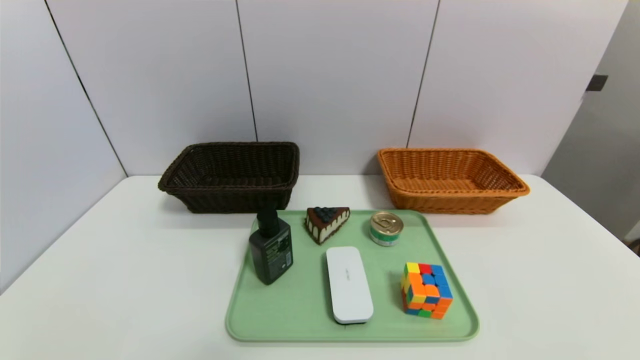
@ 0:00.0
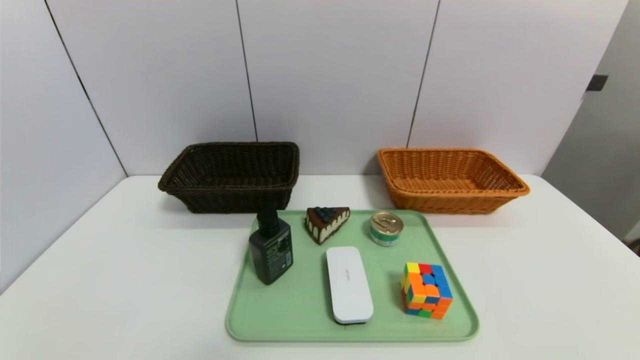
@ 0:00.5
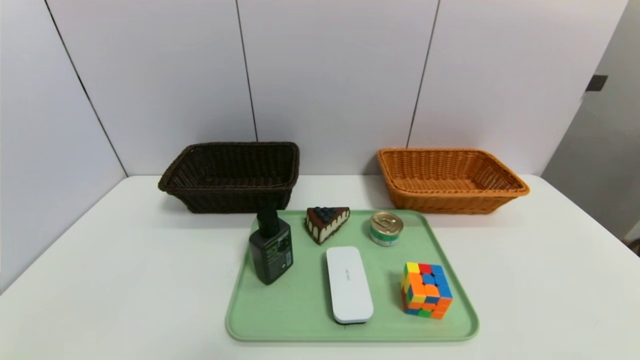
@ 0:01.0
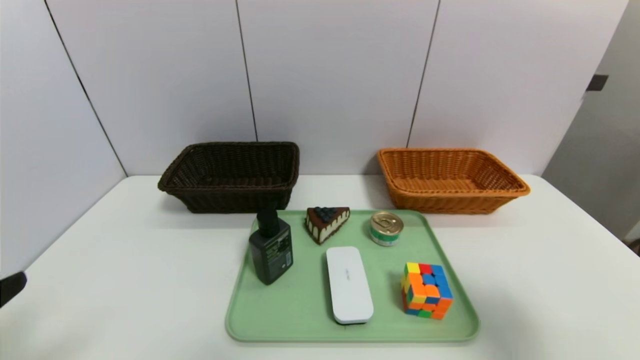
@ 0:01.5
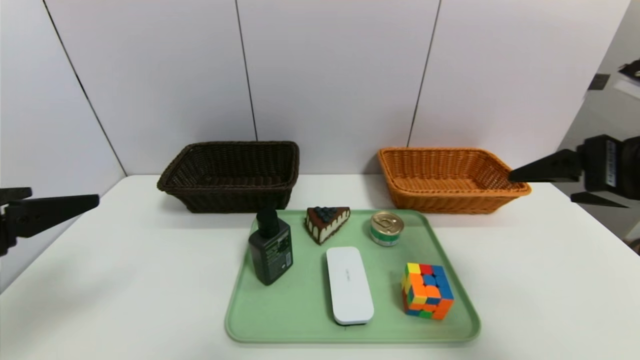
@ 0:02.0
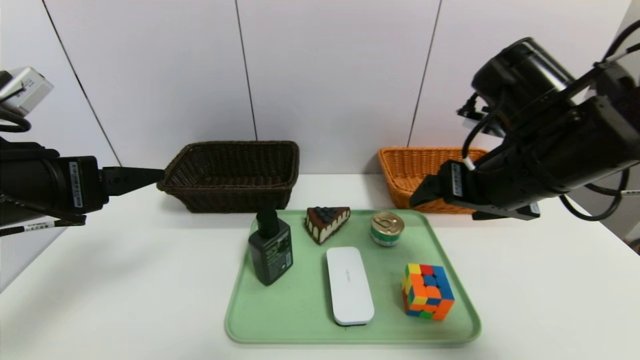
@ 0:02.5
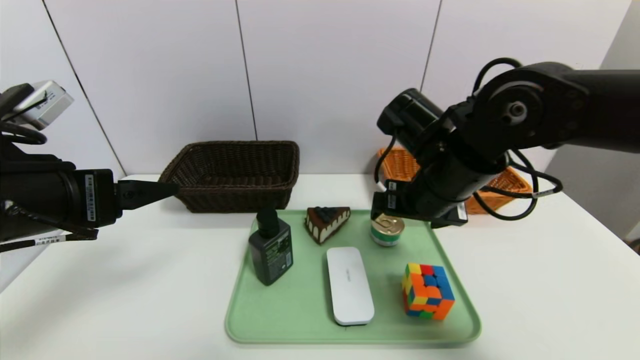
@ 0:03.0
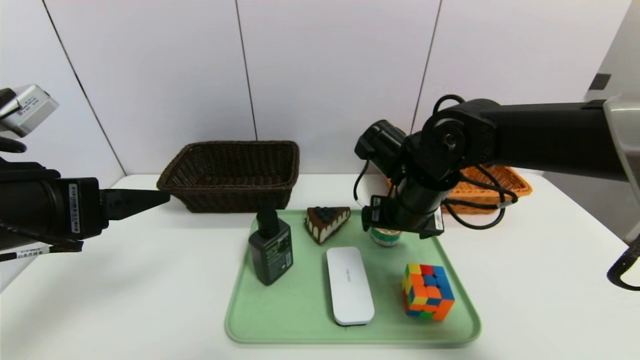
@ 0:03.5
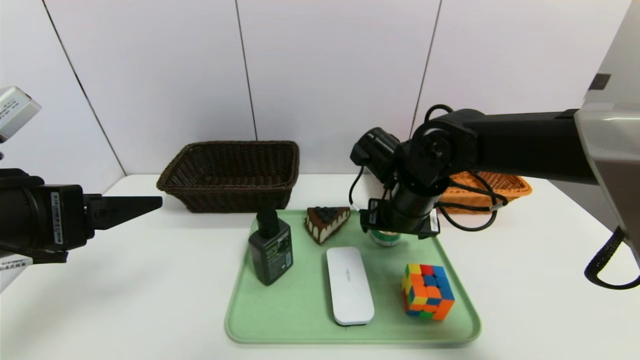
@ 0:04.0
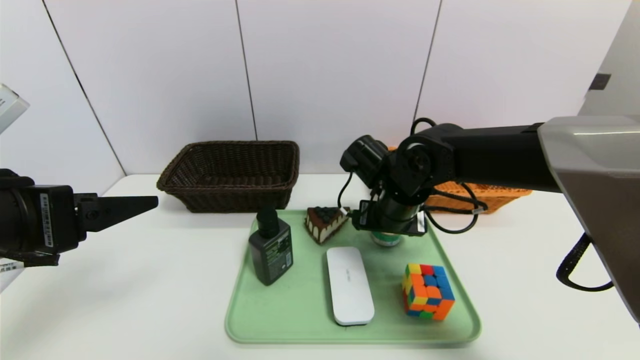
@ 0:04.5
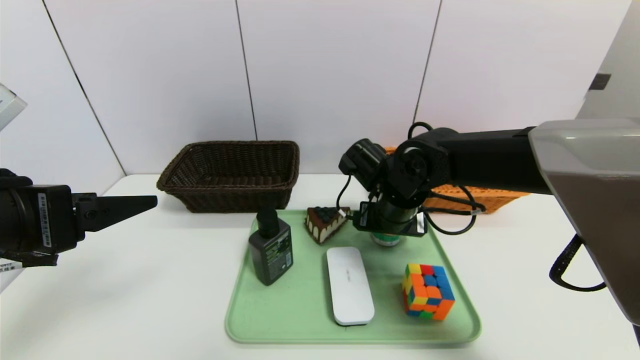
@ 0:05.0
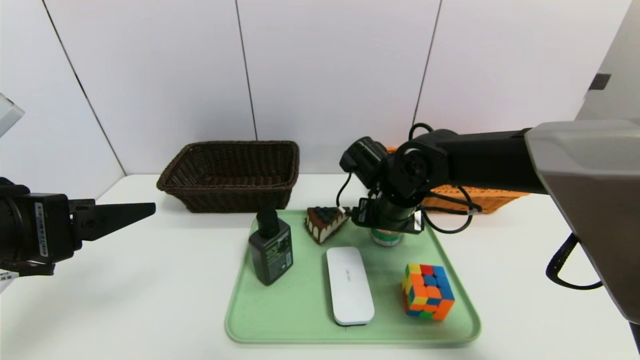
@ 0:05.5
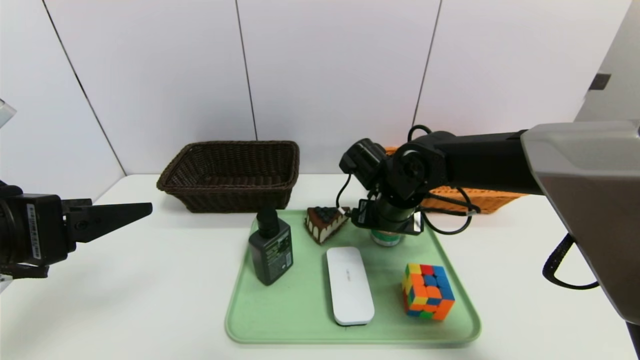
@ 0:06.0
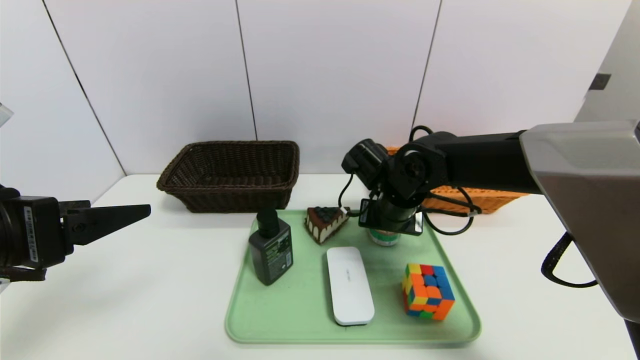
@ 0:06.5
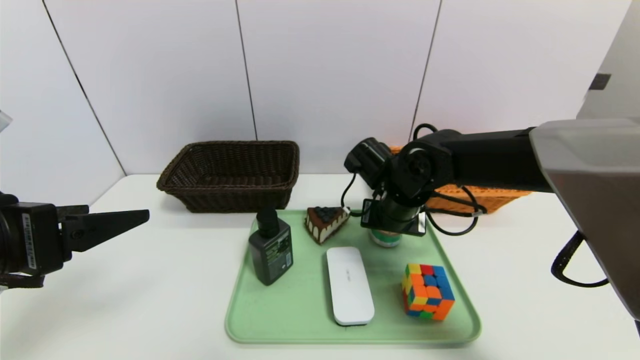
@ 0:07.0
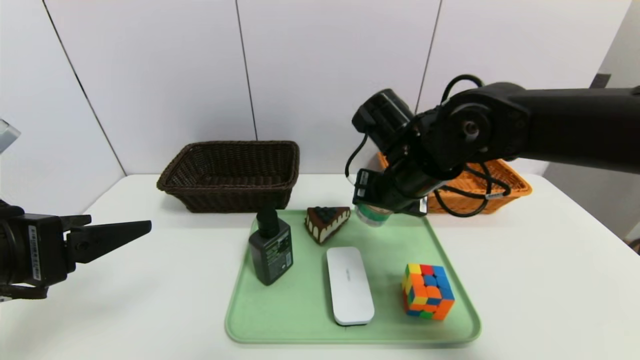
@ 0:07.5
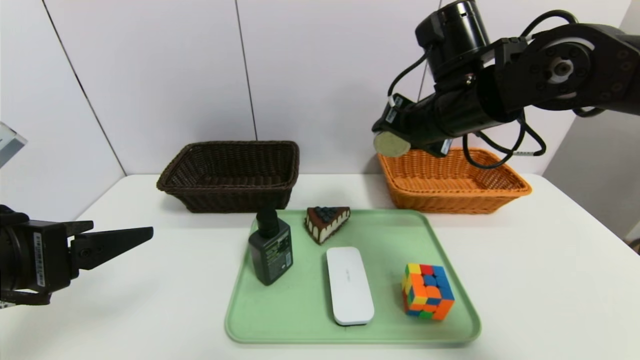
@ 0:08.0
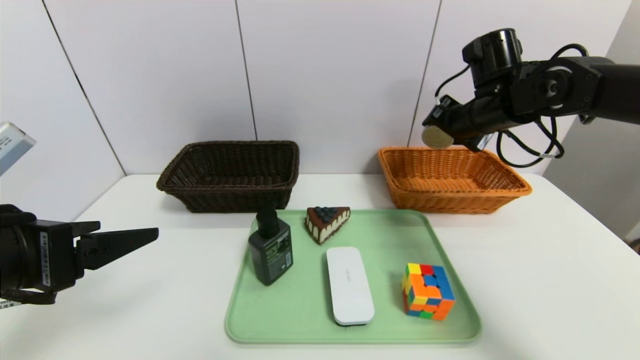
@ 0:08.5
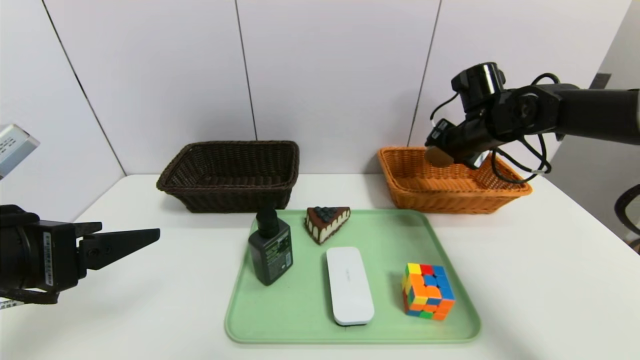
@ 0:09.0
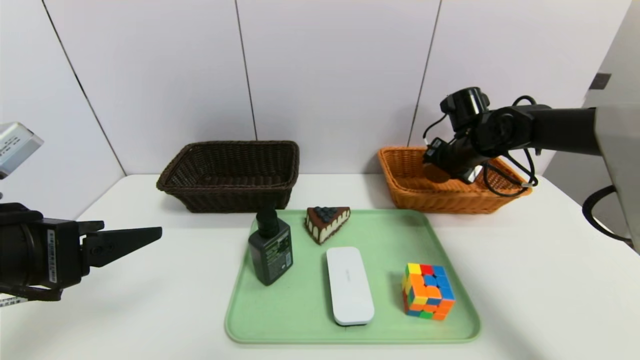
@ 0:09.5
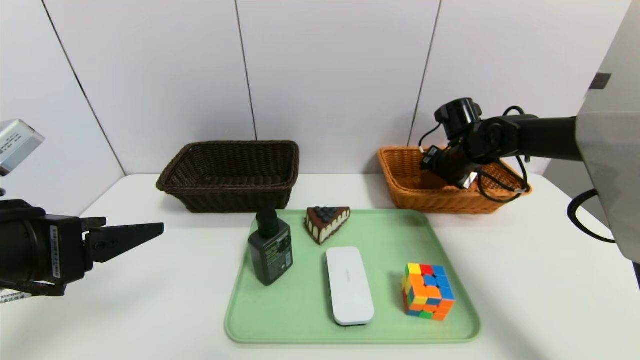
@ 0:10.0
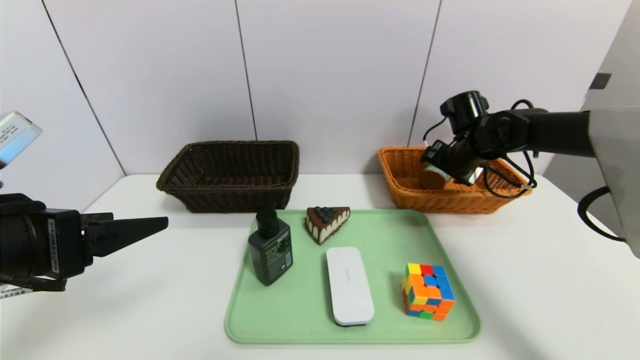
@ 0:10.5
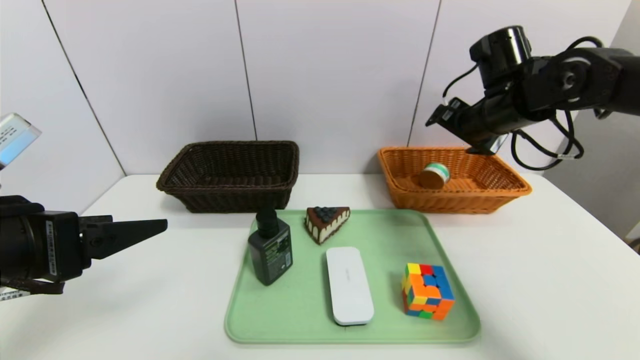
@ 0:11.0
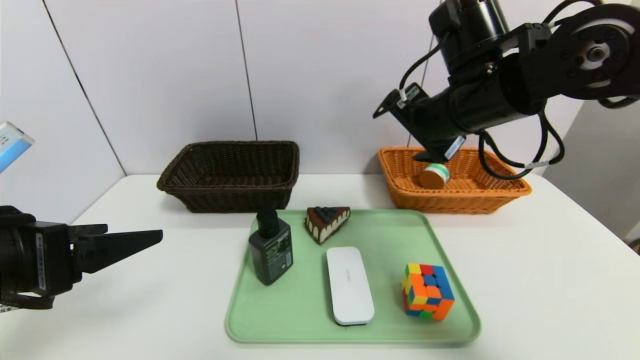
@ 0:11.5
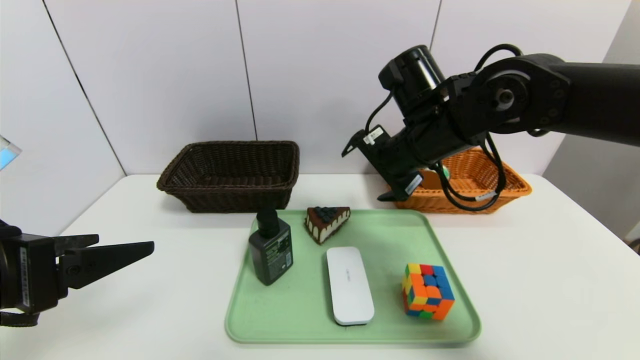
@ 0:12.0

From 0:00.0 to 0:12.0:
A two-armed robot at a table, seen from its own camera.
Task of the whole recording: place the food in the right basket with the right gripper, and place the non food items in the left basket with the left gripper.
Step, from 0:00.0 to 0:10.5: Grasp the tin and put it in the right basket.
From 0:00.0 to 0:02.0: The two grippers go approximately 30 cm upward and forward.
From 0:02.0 to 0:04.0: The right gripper moves to the left, forward and downward, about 25 cm.
From 0:04.0 to 0:06.0: The grippers stay close to where they were, moving slightly.
From 0:06.0 to 0:08.0: The right gripper shifts some 15 cm upward, and closes up.
From 0:08.0 to 0:10.0: The right gripper is displaced forward, downward and to the right by approximately 20 cm.
From 0:10.0 to 0:12.0: The right gripper is displaced to the left, backward and upward by roughly 20 cm, and opens.

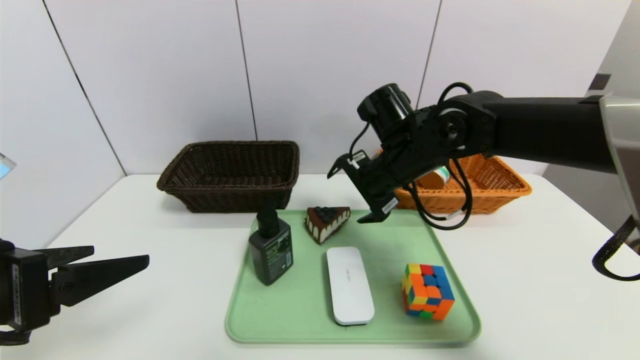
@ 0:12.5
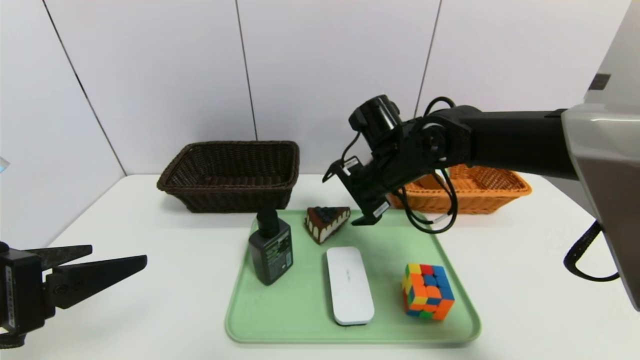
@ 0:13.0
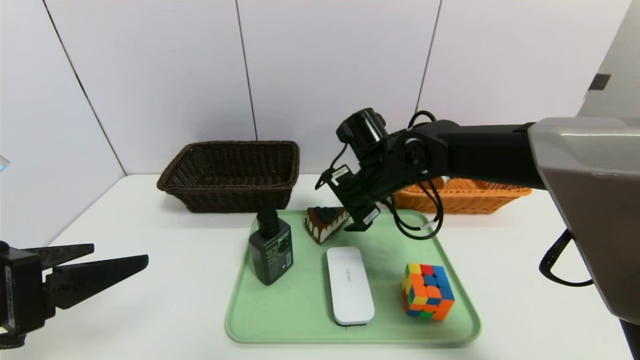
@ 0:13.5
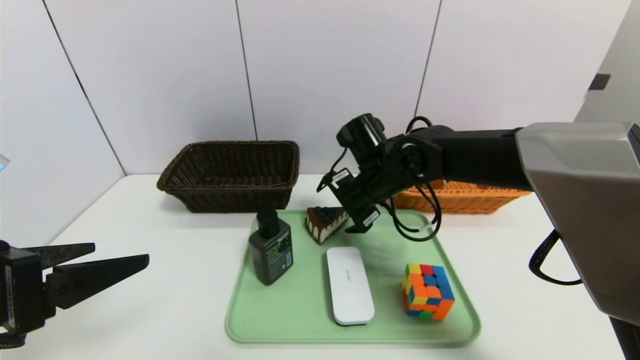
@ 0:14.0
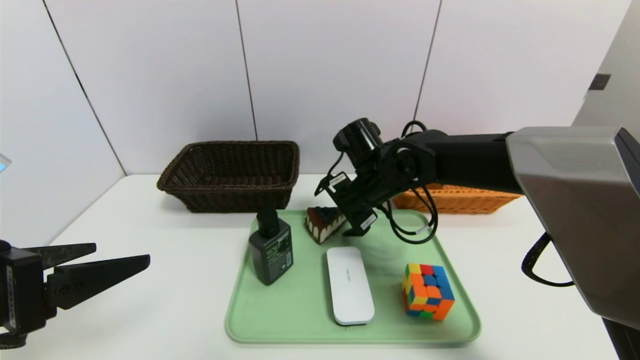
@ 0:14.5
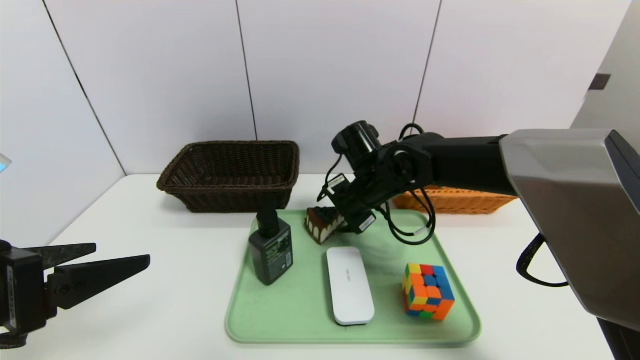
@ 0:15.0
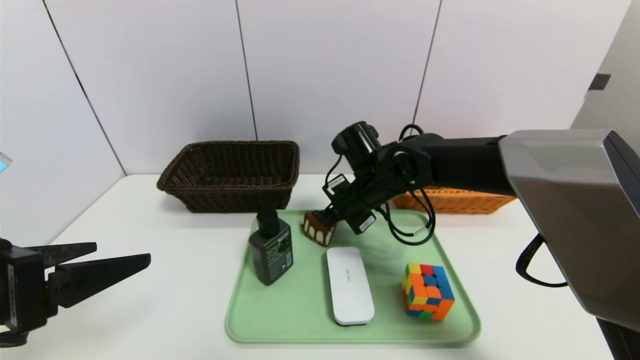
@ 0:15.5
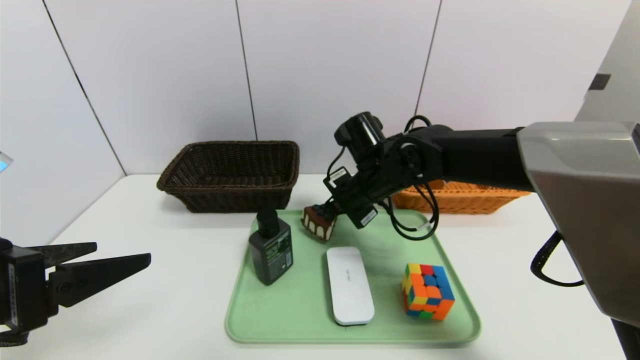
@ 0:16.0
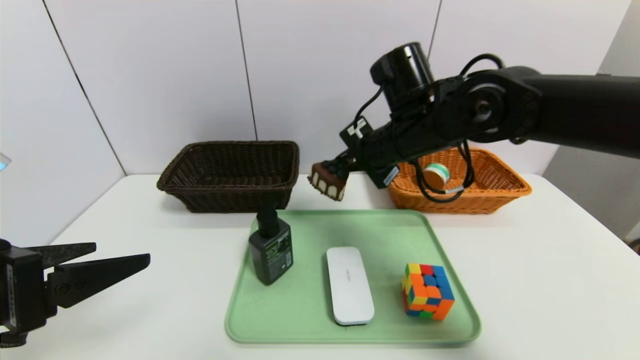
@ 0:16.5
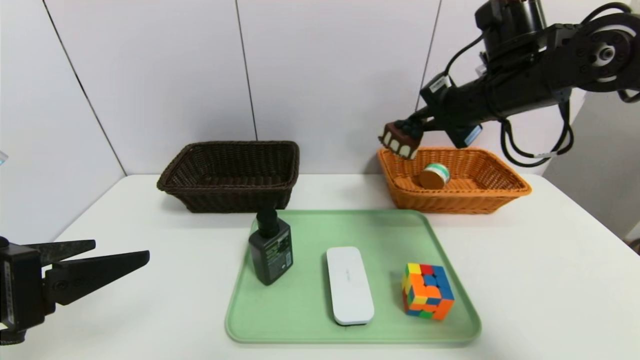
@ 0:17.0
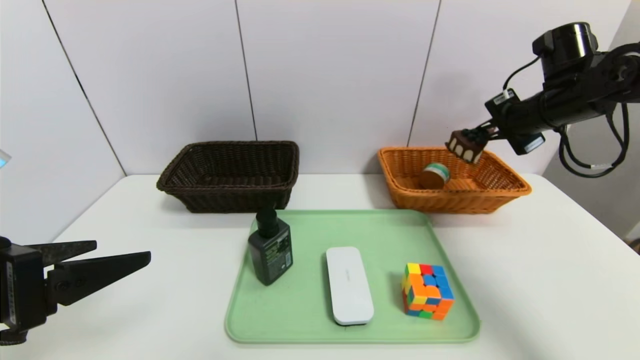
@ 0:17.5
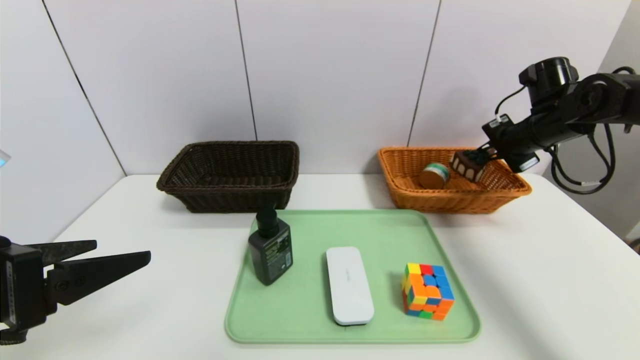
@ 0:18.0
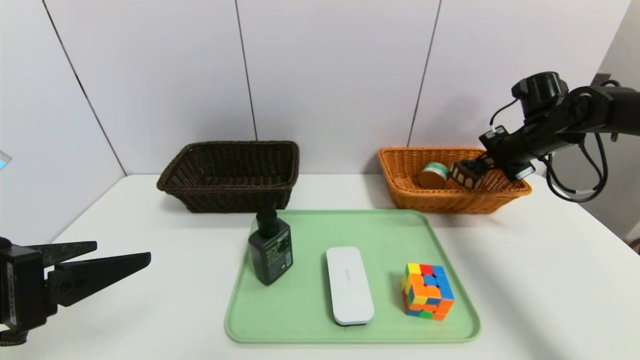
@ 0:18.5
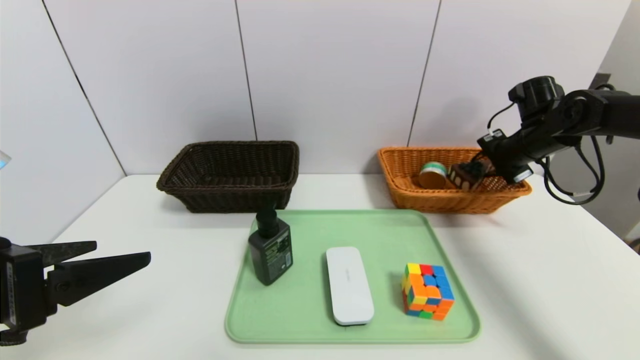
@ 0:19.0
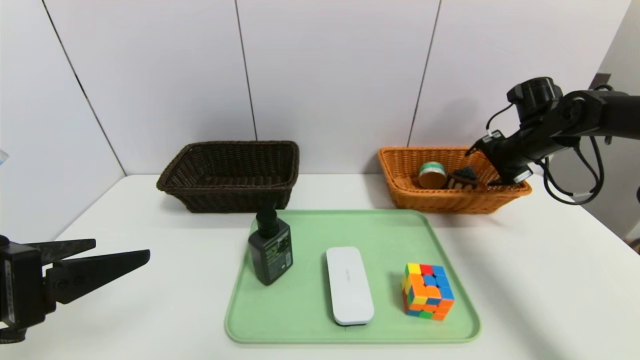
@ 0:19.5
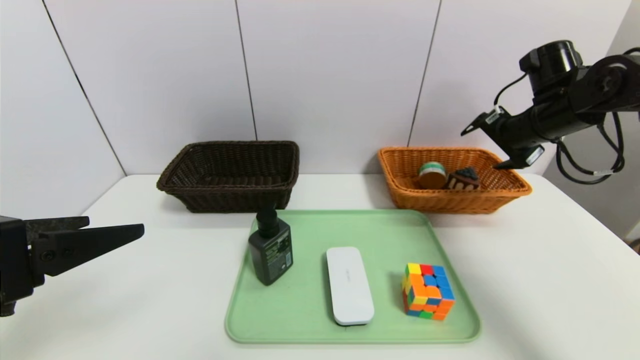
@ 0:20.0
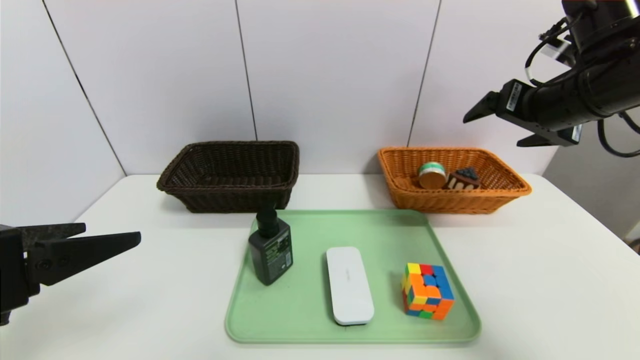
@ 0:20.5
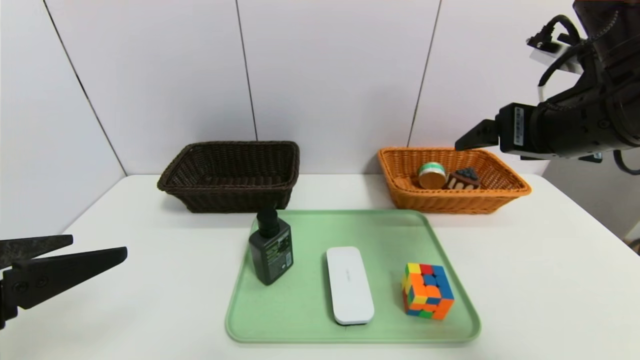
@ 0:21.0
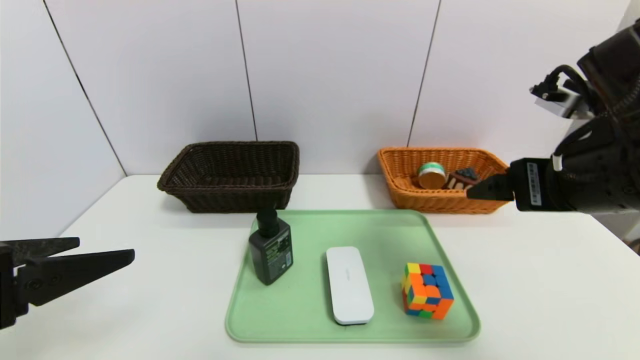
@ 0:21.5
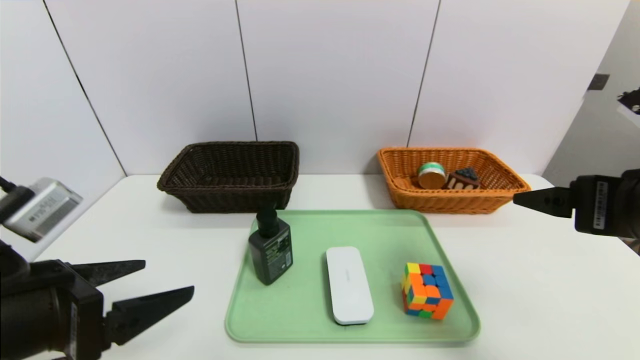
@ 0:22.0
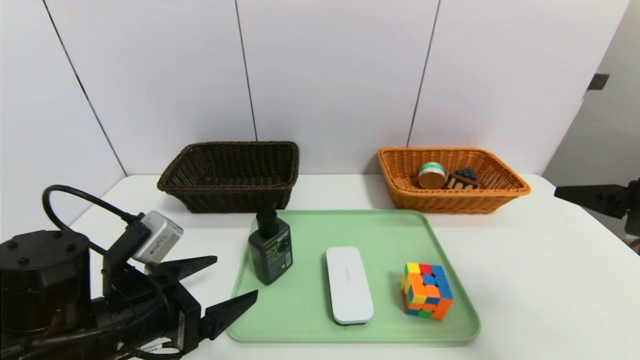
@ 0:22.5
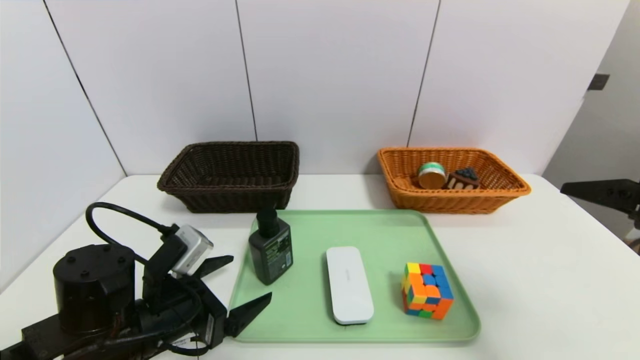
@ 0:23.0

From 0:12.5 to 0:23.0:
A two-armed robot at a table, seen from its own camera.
Task of the whole recording: place the food in the right basket with the right gripper, and place the non food items in the left basket with the left gripper.
Step, from 0:12.5 to 0:19.5: Grasp the triangle cake and put it in the right basket.
From 0:12.5 to 0:14.5: The right gripper moves downward, some 5 cm.
From 0:14.5 to 0:16.5: The right gripper heads upward, covering roughly 10 cm, and closes its fingers.
From 0:16.5 to 0:19.0: The right gripper is displaced to the right by some 25 cm.
From 0:19.0 to 0:21.0: The right gripper heads backward, upward and to the left, covering about 25 cm, and opens up.
From 0:21.0 to 0:23.0: The left gripper travels downward, forward and to the right by roughly 20 cm. The right gripper moves backward, to the right and downward, some 15 cm.
